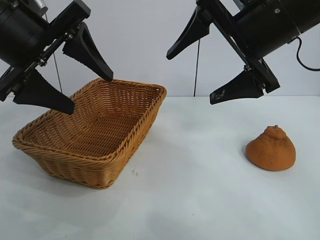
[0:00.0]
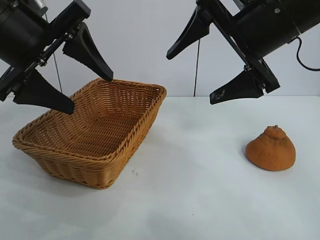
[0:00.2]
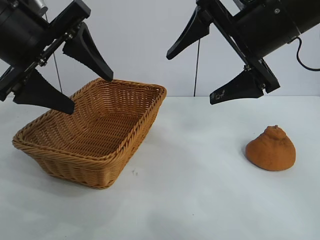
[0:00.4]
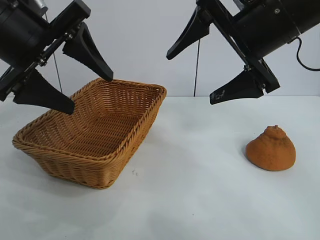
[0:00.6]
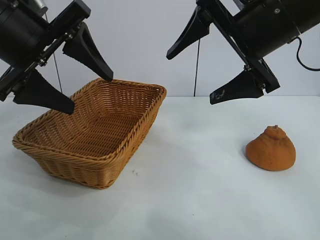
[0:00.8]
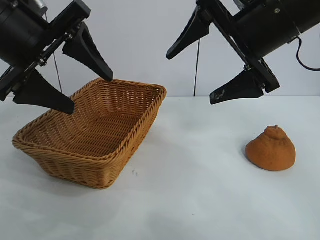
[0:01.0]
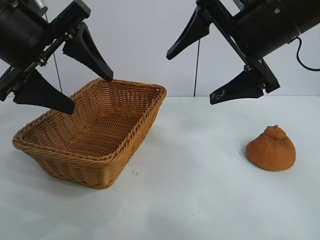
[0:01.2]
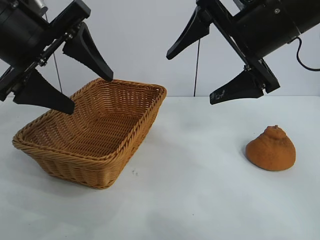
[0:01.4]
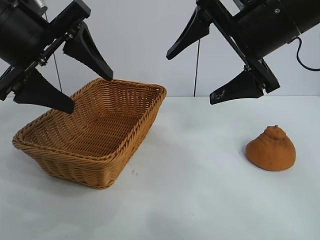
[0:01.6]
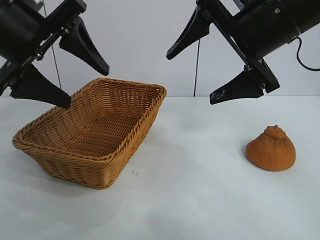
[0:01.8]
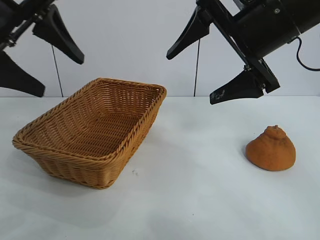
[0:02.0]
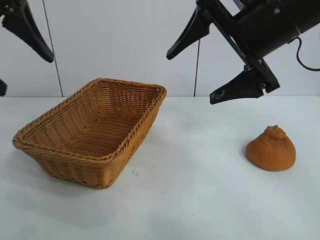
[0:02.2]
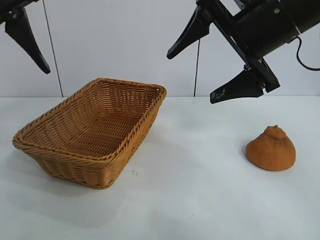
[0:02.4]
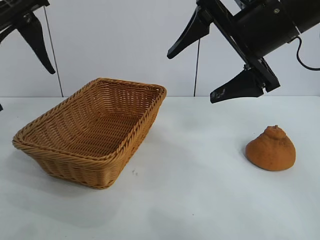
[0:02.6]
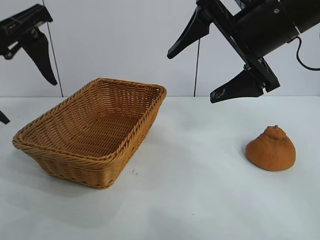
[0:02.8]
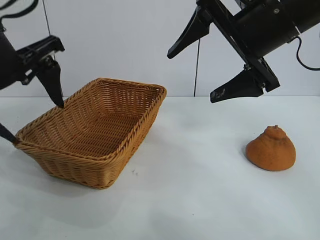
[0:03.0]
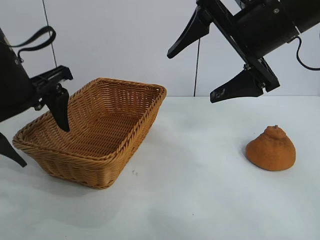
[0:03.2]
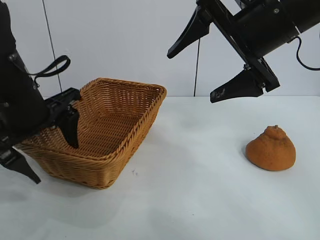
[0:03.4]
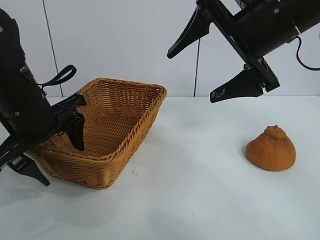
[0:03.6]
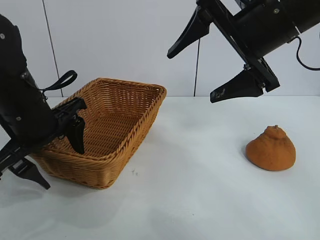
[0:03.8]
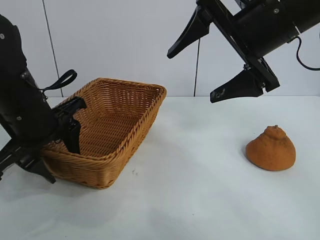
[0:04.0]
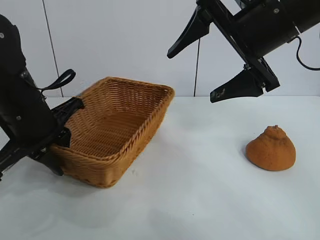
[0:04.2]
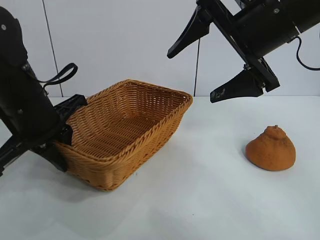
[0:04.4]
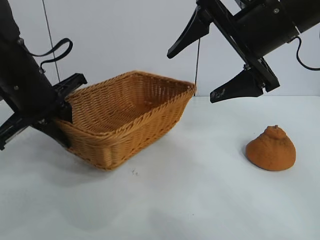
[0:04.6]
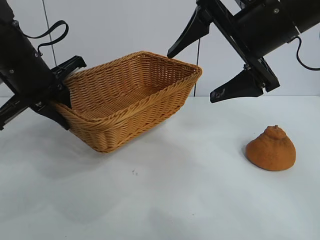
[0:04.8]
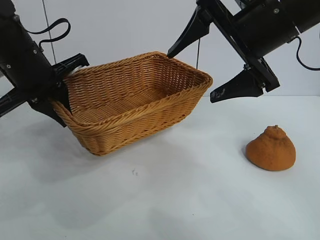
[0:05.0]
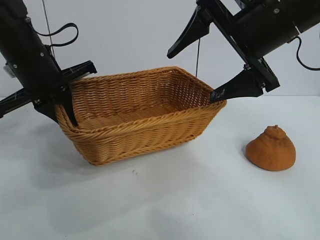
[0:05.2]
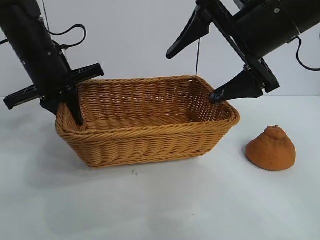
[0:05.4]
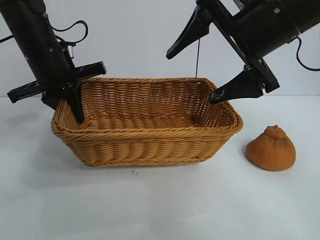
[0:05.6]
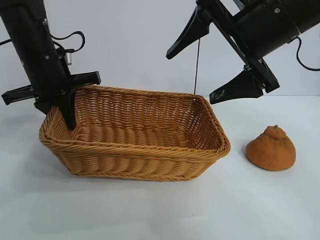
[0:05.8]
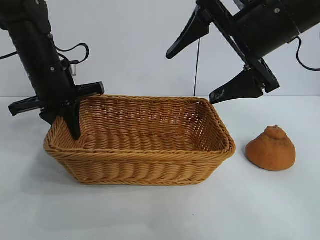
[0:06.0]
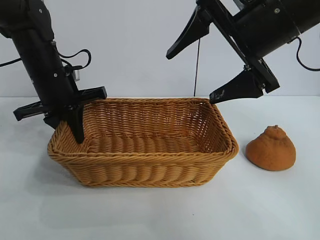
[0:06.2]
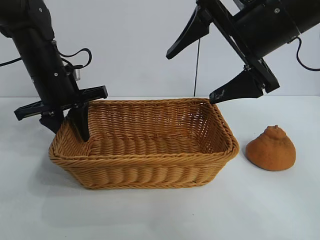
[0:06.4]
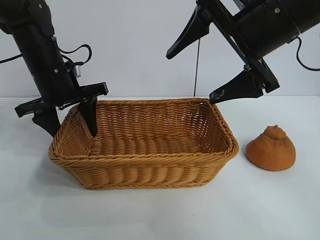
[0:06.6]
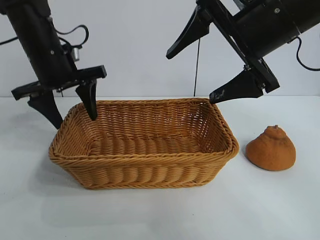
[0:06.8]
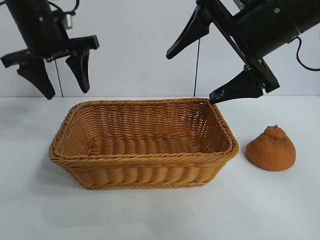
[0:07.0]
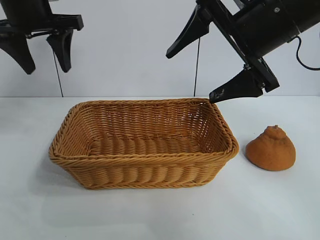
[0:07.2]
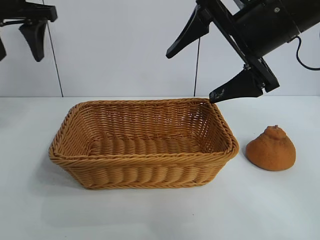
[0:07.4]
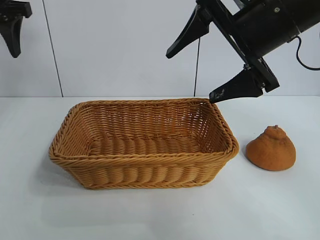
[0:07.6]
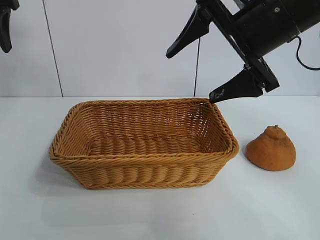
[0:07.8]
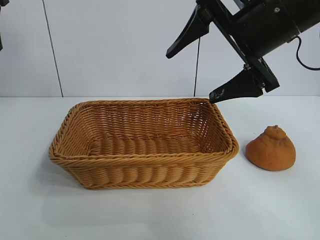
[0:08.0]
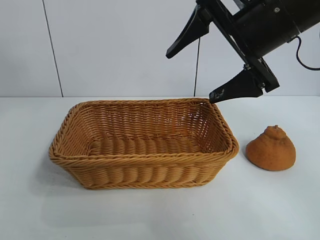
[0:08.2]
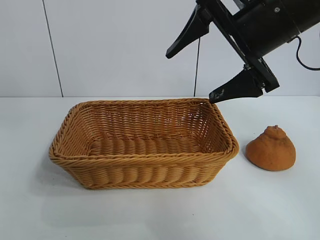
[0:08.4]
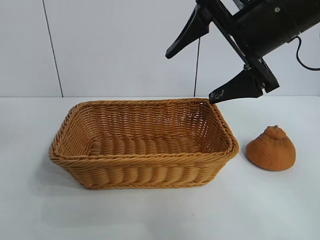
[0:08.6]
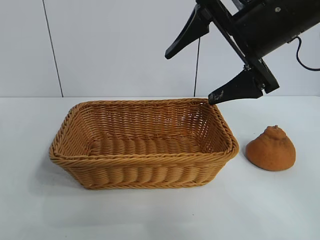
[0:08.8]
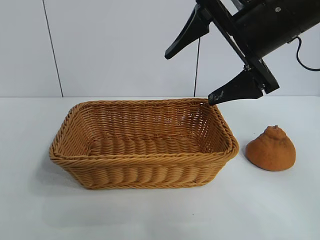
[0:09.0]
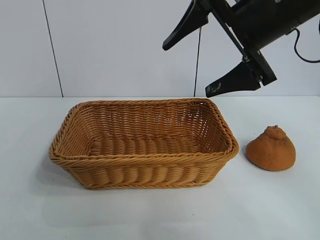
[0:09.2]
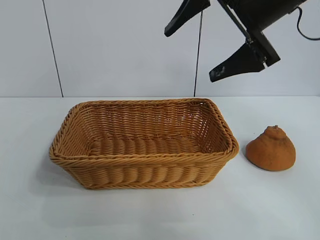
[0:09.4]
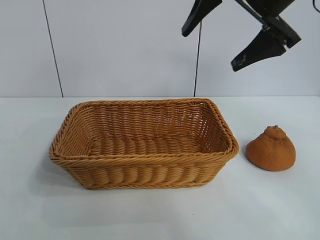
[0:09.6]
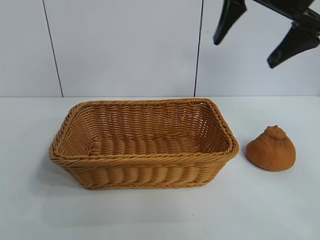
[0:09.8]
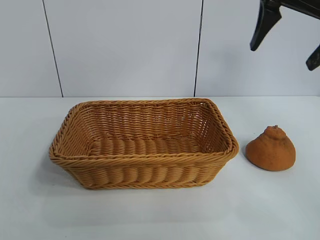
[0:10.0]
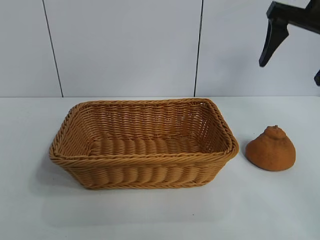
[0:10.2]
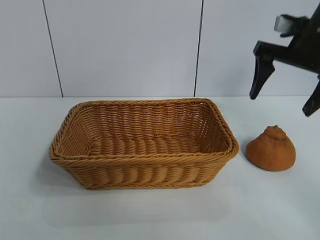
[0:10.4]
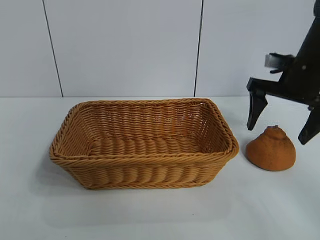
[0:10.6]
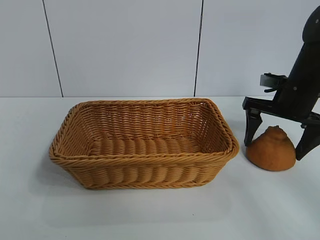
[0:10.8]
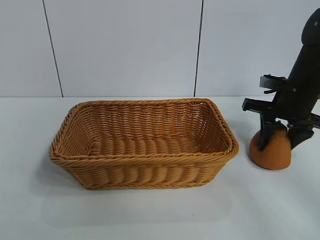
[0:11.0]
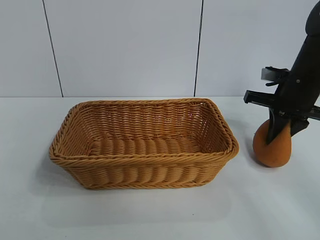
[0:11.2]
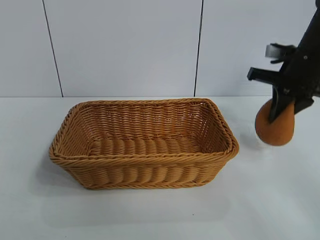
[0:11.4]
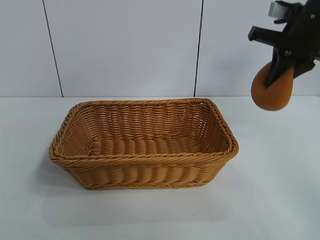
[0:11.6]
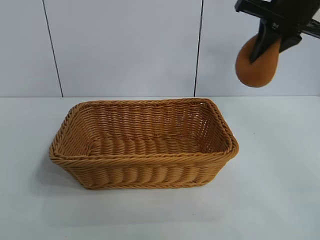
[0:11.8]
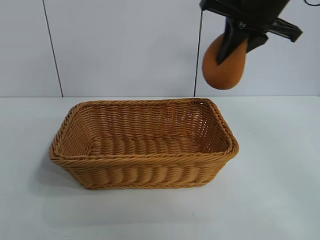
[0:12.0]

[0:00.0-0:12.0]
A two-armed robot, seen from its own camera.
Task of the whole recording: pick up the orange and put it into the basket.
Step, 0:01.4 to 0:04.2: Grasp the basket with left gripper.
Step, 0:04.4 to 0:06.4: Place the basket in the center of view with left gripper.
Step, 0:06.8 to 0:11.0: Grasp the orange with right gripper.

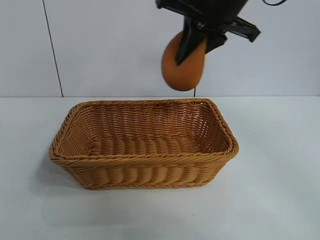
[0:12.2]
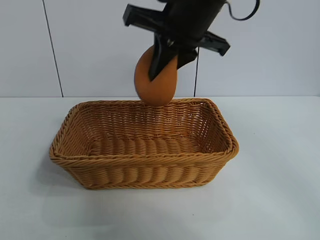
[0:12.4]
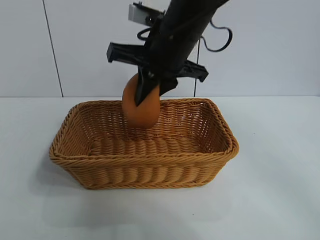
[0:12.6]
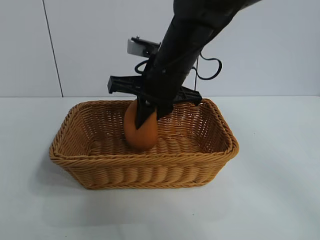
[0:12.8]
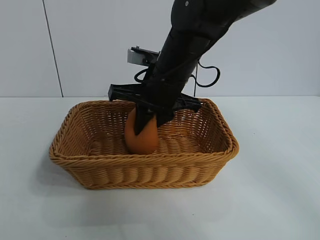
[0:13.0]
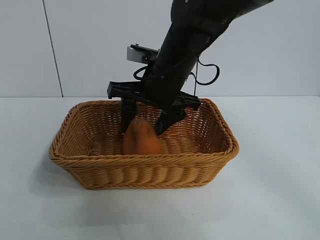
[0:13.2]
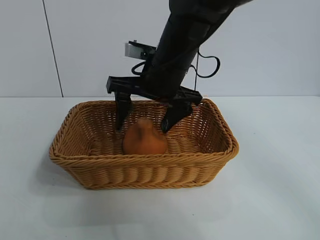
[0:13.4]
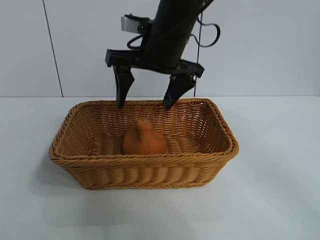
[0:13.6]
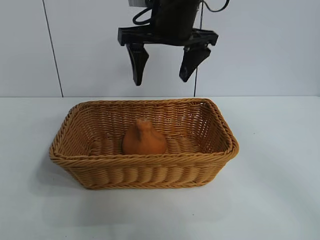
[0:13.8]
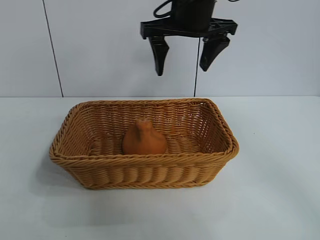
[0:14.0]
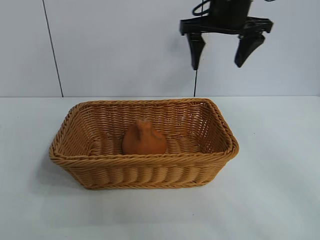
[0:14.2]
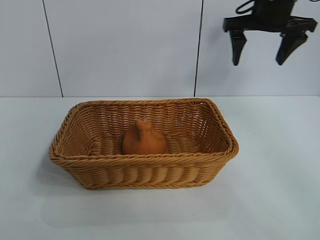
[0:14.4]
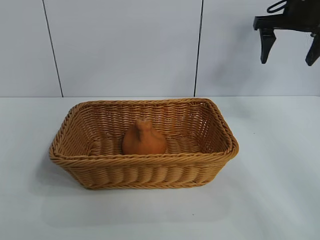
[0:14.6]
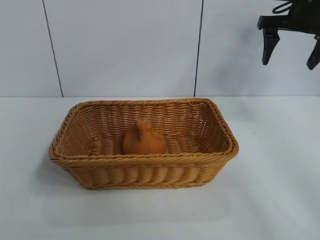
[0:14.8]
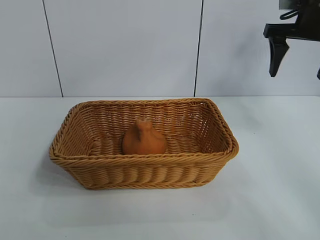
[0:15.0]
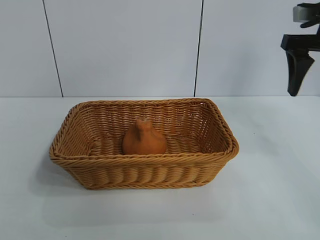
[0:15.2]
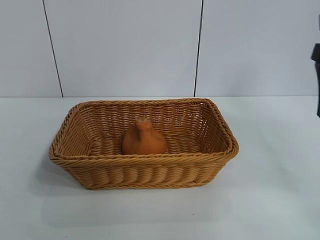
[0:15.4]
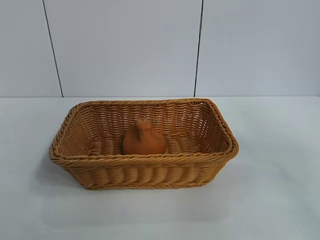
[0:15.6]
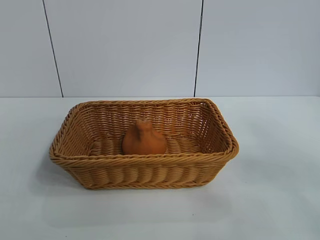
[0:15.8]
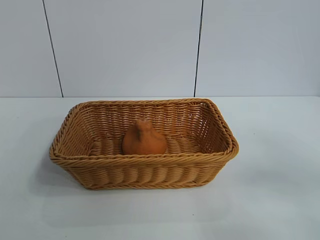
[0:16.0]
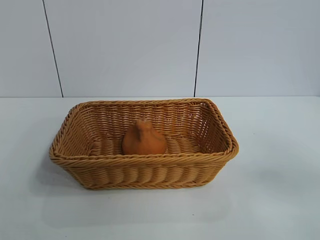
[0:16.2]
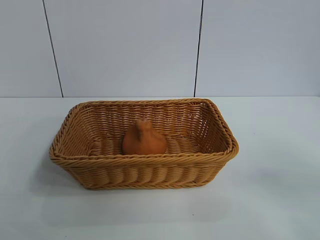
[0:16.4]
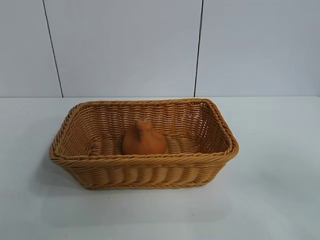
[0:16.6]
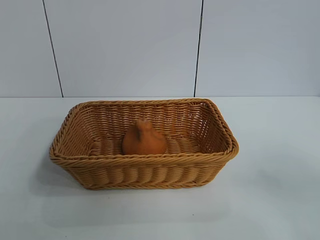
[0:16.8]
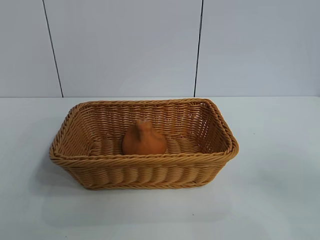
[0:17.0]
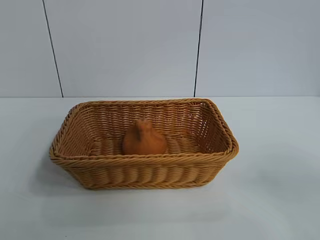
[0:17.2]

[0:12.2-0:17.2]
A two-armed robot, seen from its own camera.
Task of the whole recording: pick up the orange and put it into the basket.
Step, 0:12.2 to 0:13.4: Place the orange in the basket with right gripper.
